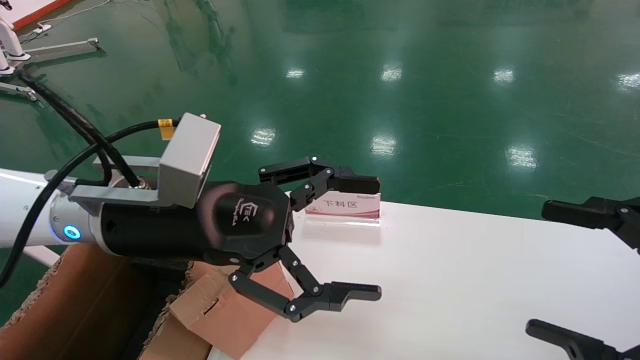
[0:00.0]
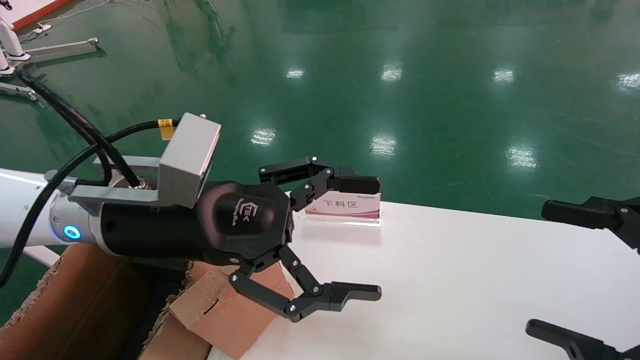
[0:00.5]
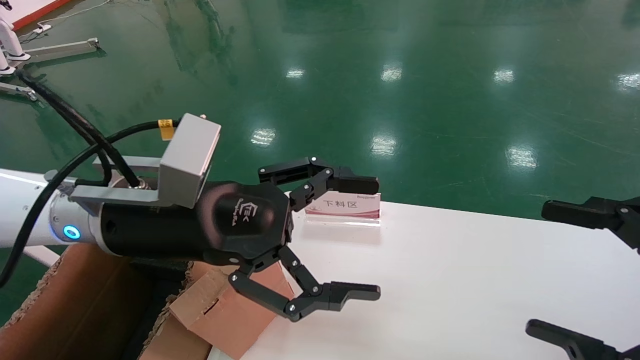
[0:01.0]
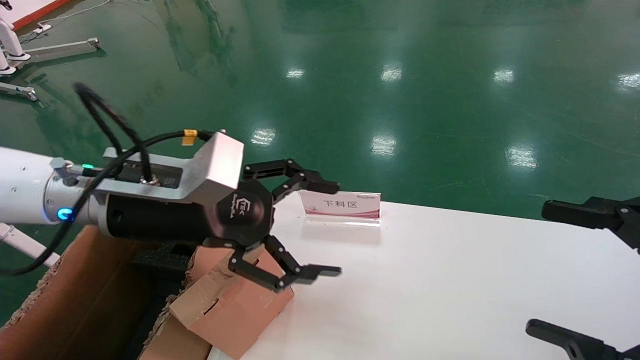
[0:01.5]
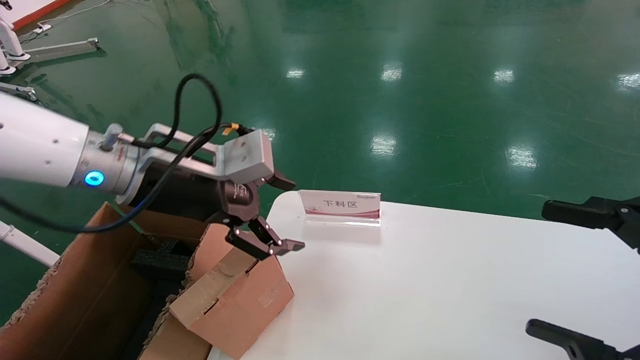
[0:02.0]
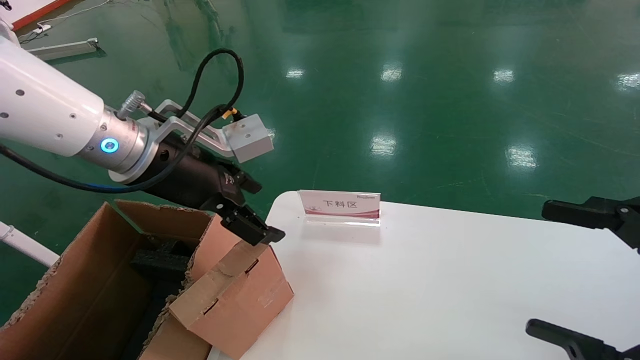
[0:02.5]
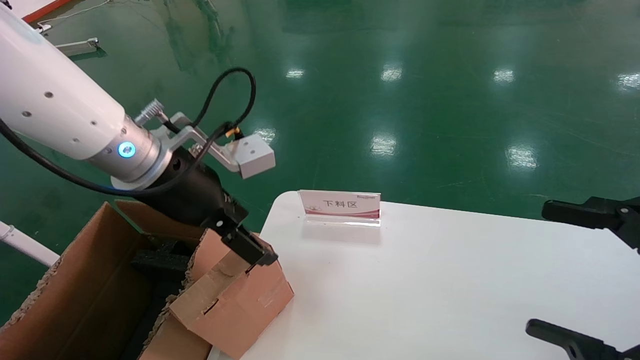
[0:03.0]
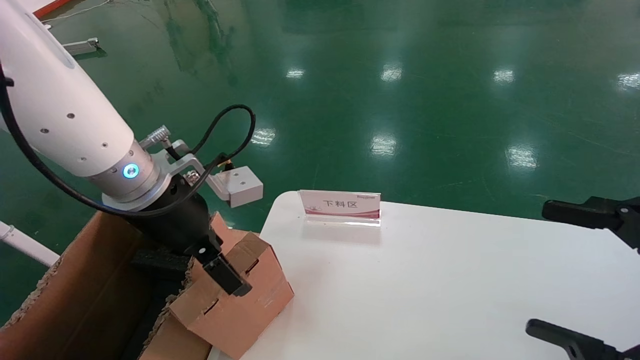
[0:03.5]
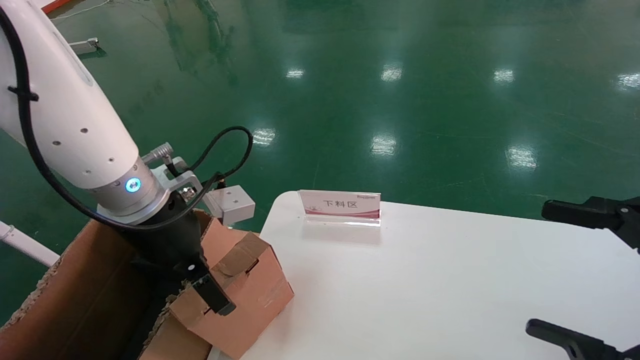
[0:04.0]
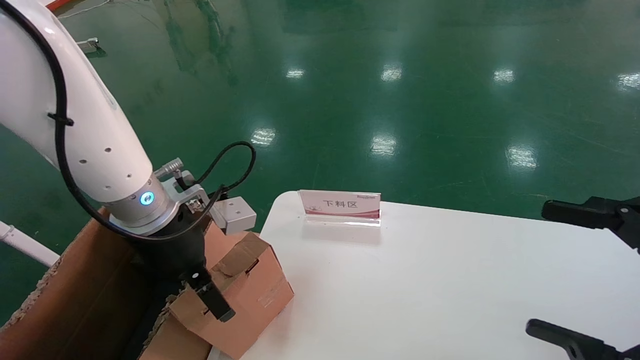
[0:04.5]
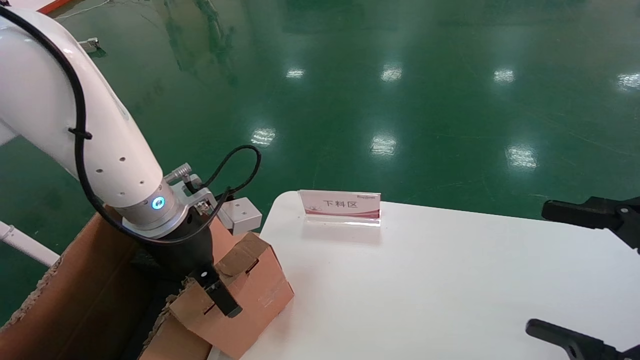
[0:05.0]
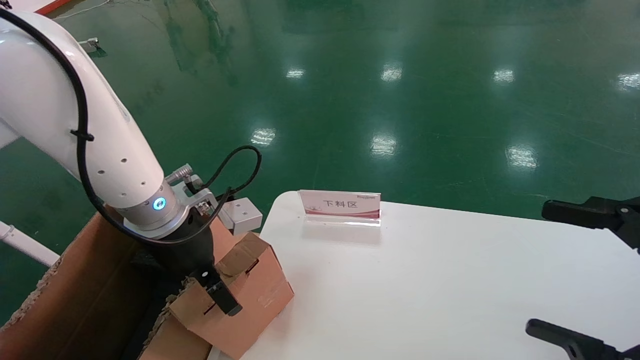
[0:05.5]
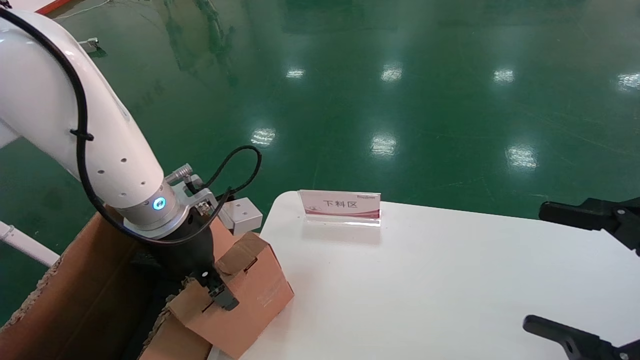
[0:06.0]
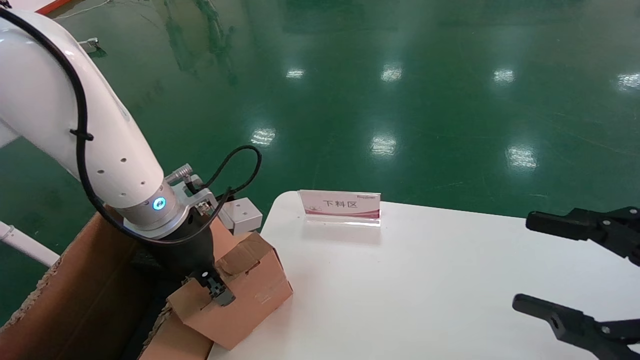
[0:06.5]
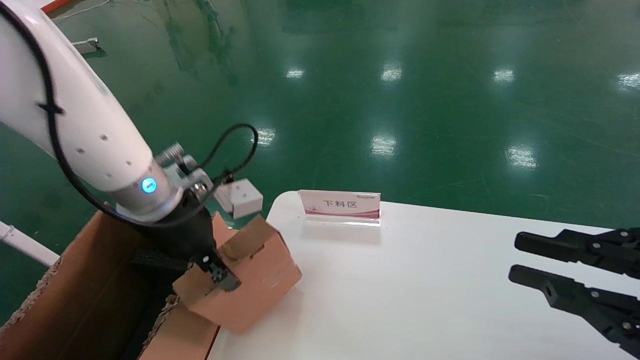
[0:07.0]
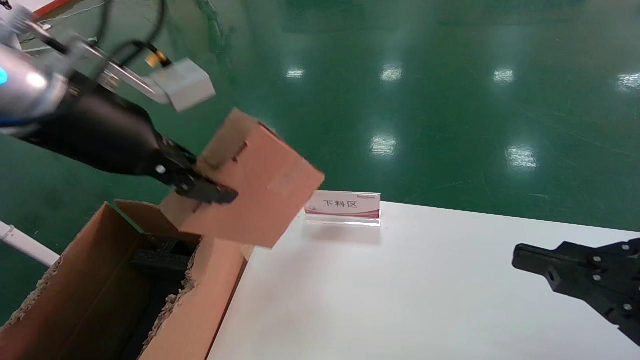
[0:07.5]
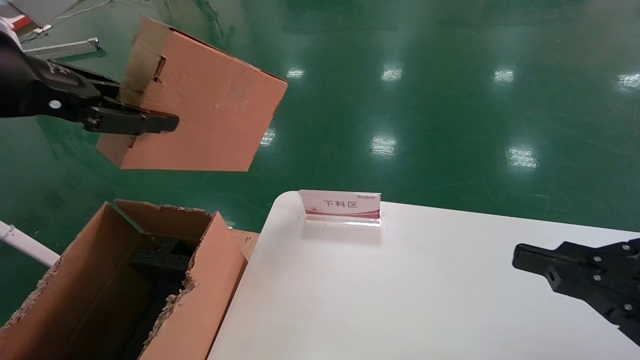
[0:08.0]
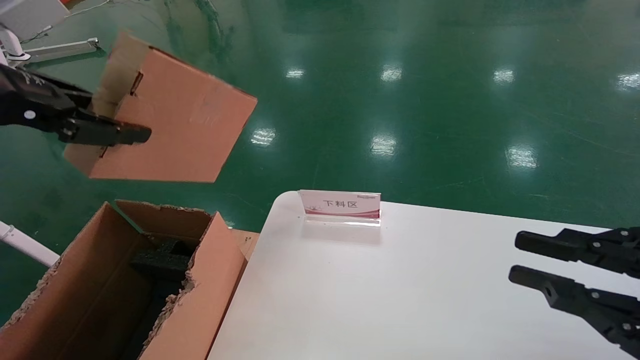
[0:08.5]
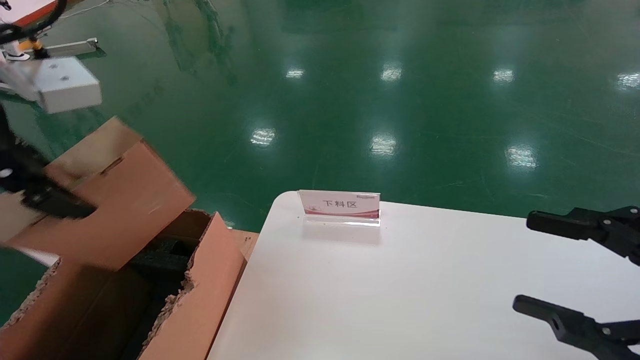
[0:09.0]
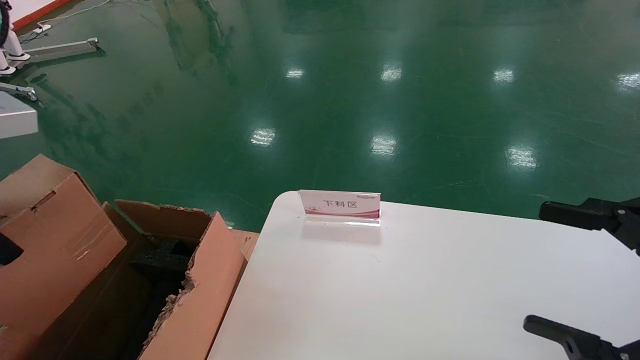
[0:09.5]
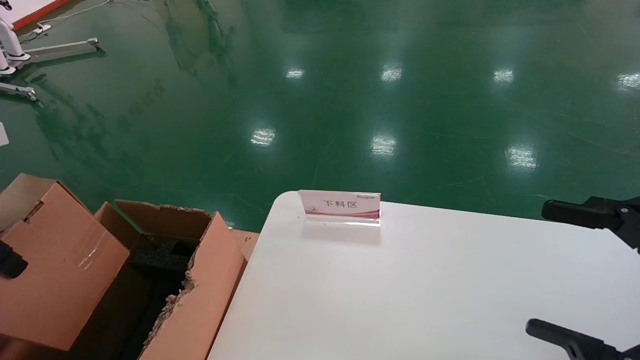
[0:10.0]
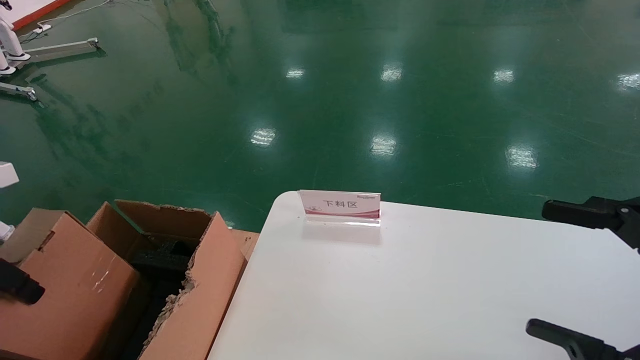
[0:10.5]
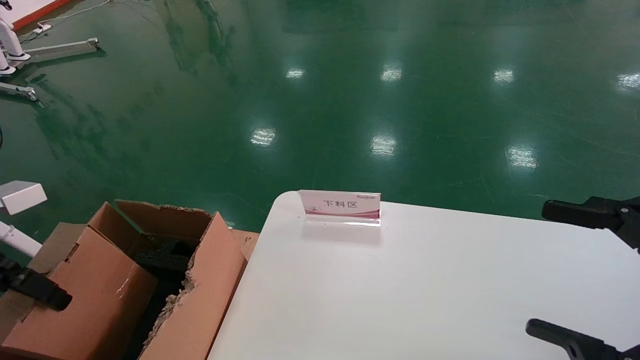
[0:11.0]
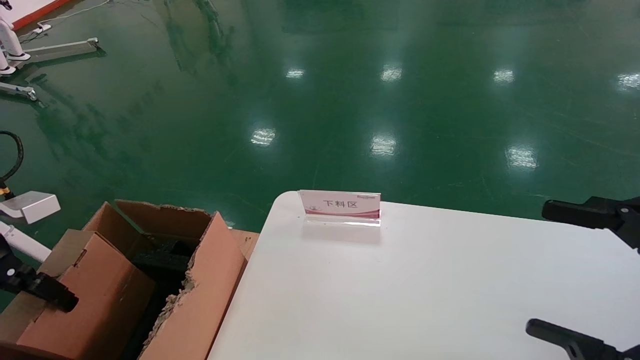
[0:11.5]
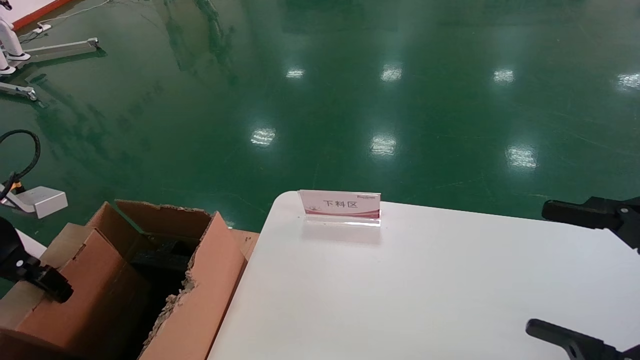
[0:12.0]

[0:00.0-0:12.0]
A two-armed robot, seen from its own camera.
Task of the whole recording: pick up the small cardboard box and load it into the large cardboard box.
Step, 0:01.5 to 0:06.5: Pick up the mouse and power cord box.
0:00.0 to 0:02.0: The left gripper ends up roughly 5 cm from where it was.
0:04.0 to 0:06.0: The left gripper closes its fingers.
0:06.0 to 0:08.0: The left gripper heads upward, backward and to the left, covering some 25 cm, and closes up, while the right gripper closes.
0:08.0 to 0:10.0: The right gripper opens; the left gripper heads to the left and downward, covering roughly 10 cm.
0:10.0 to 0:12.0: The left gripper travels downward, forward and to the left by roughly 15 cm.

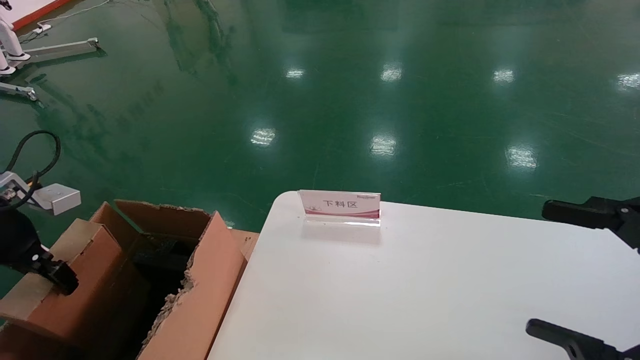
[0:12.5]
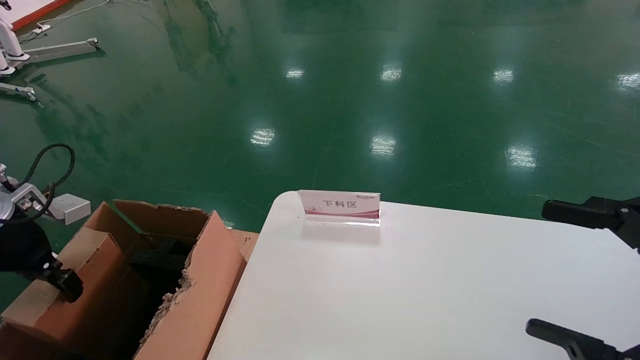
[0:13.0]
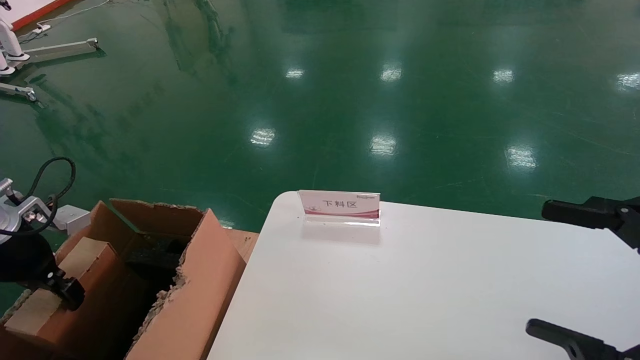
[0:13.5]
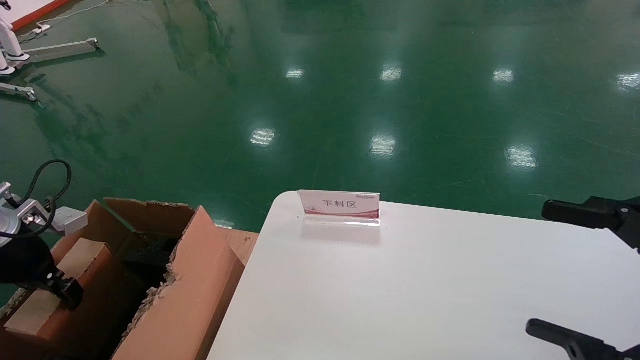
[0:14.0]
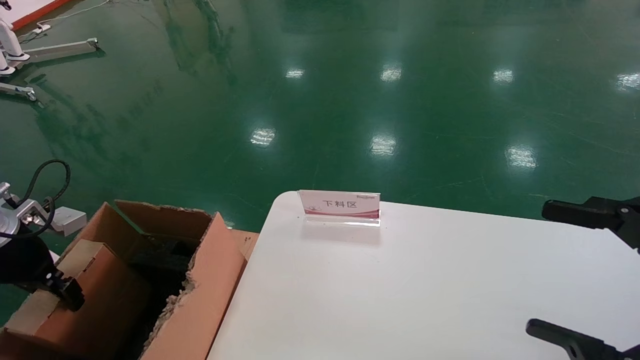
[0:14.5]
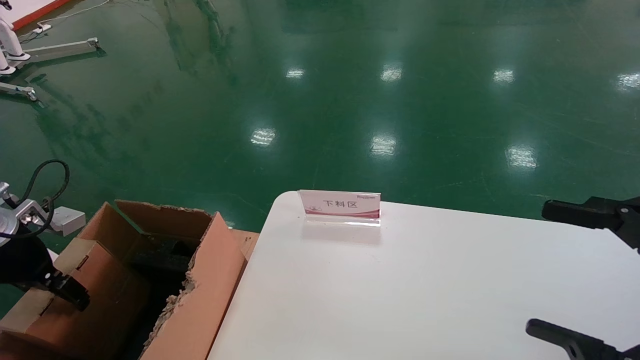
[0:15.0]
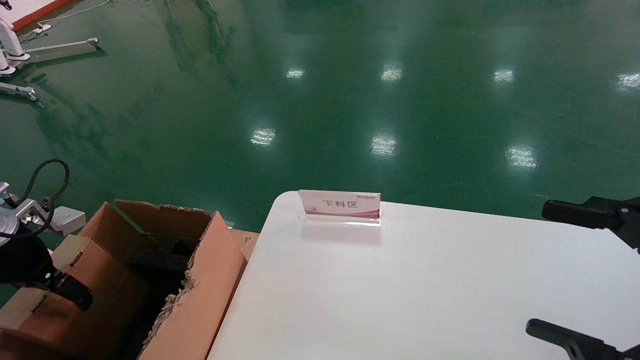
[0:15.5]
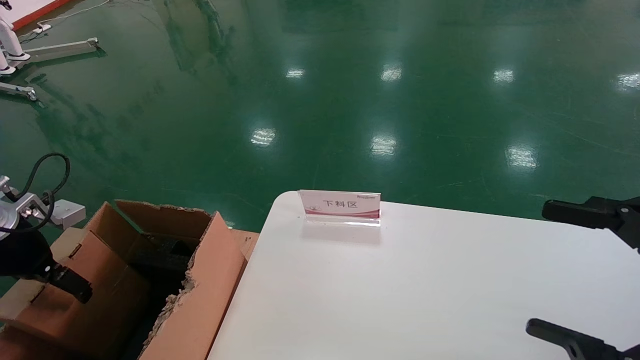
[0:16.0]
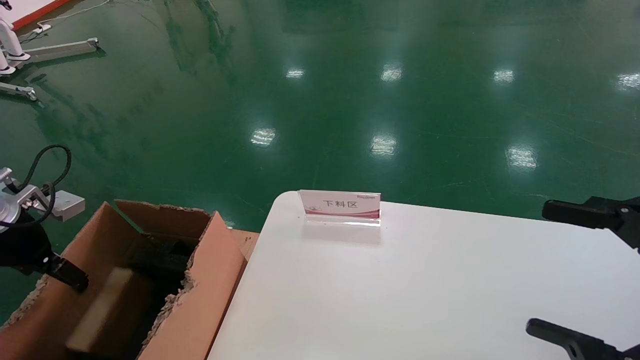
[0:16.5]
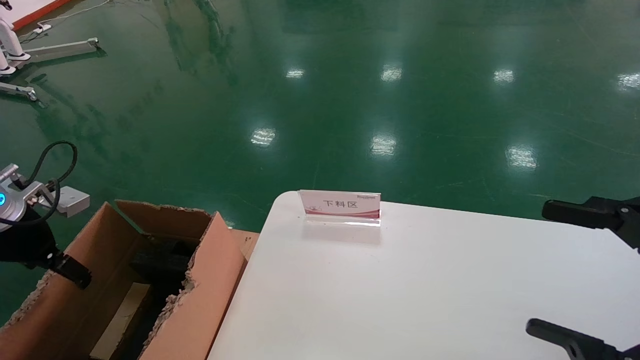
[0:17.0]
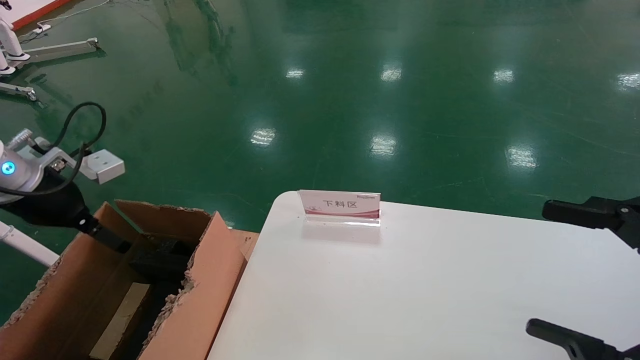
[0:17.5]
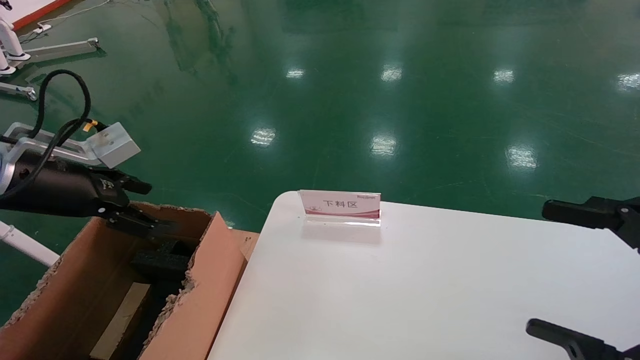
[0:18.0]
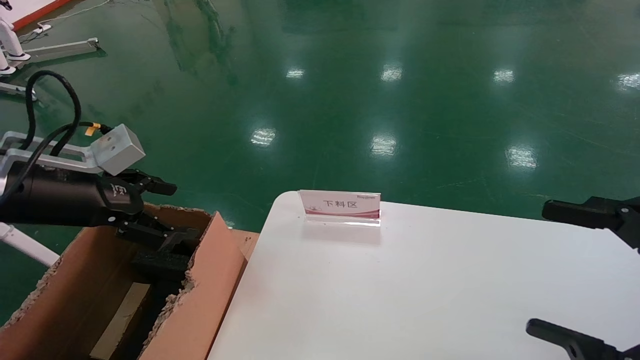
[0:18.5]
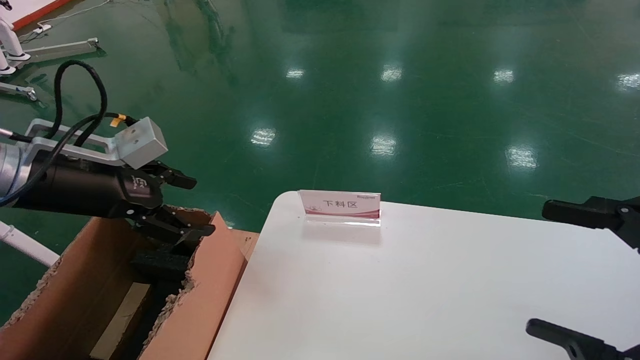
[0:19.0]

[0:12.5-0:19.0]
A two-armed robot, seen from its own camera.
Task of the whole recording: pick up the small cardboard box and load it into the large cardboard box.
Step, 0:12.5 to 0:17.0: Place the mouse and power cord box into the case.
0:12.5 to 0:14.5: The left gripper is displaced downward by approximately 5 cm.
0:14.5 to 0:17.0: The left gripper opens up.
0:17.0 to 0:19.0: The left gripper shifts approximately 15 cm to the right and upward.

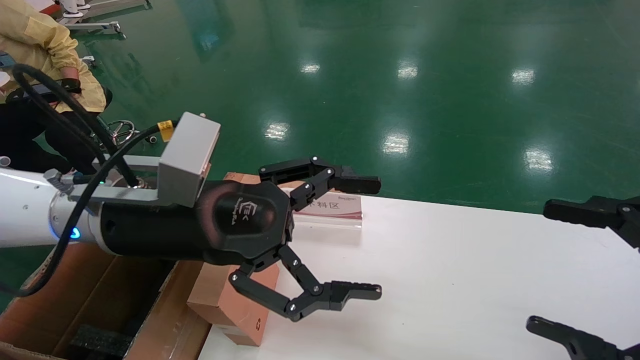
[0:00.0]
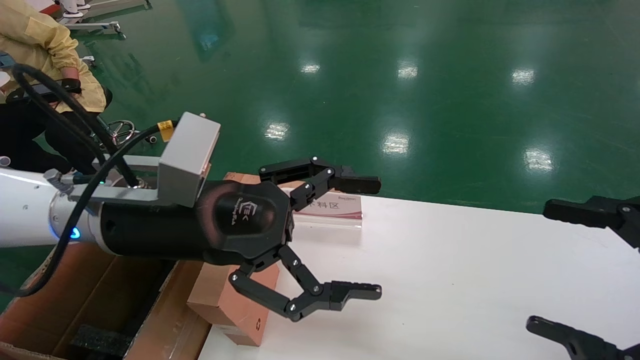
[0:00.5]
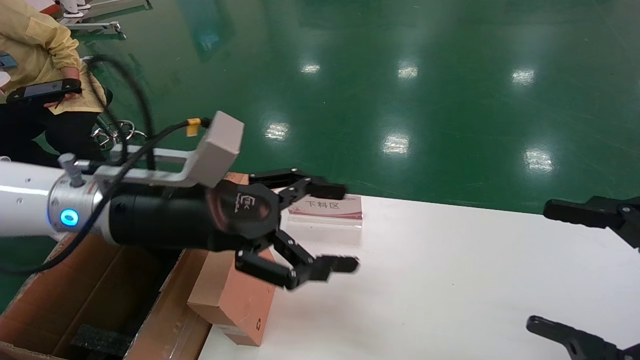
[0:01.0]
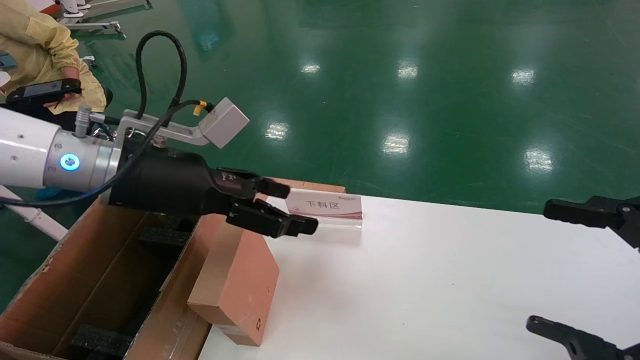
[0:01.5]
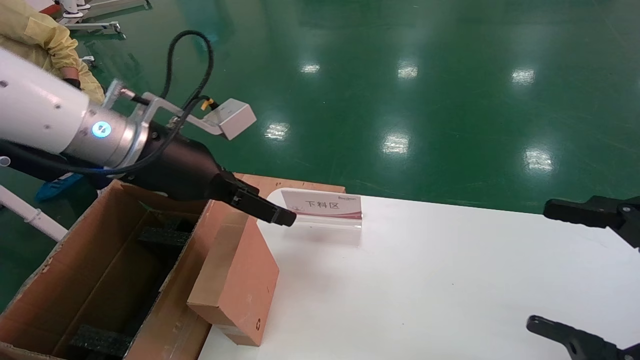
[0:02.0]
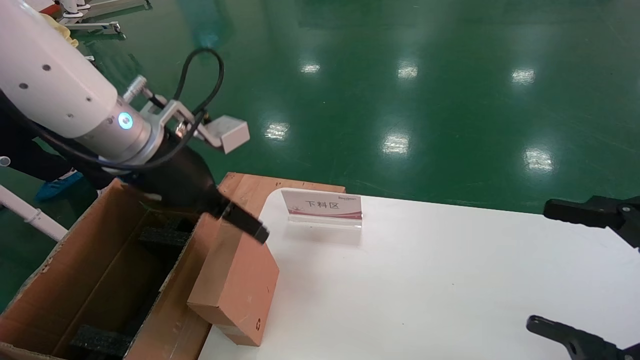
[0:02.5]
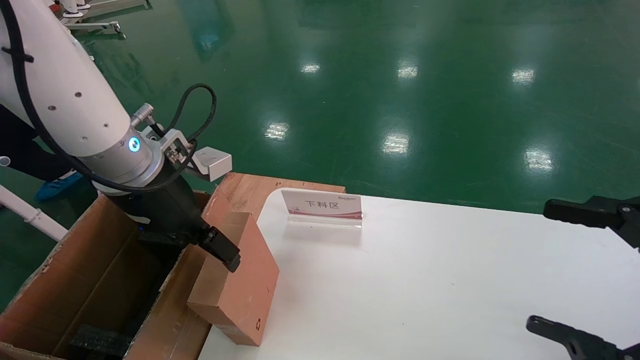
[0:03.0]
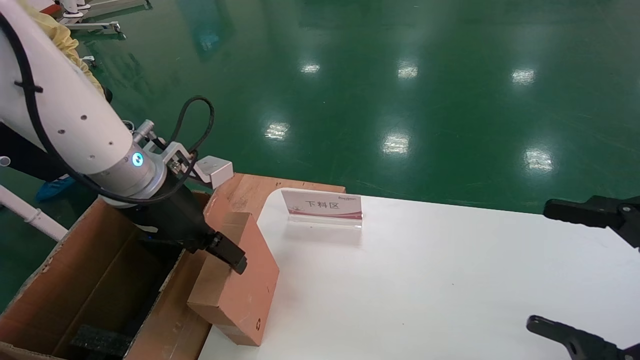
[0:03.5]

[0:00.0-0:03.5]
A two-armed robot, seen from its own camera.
Task of the whole recording: pick up the small cardboard box and load it into the large cardboard box.
0:00.0 to 0:02.0: The left gripper heads forward, covering about 5 cm.
